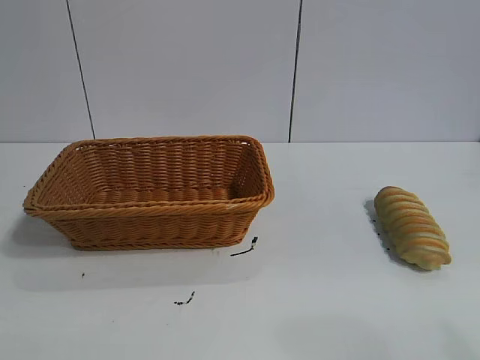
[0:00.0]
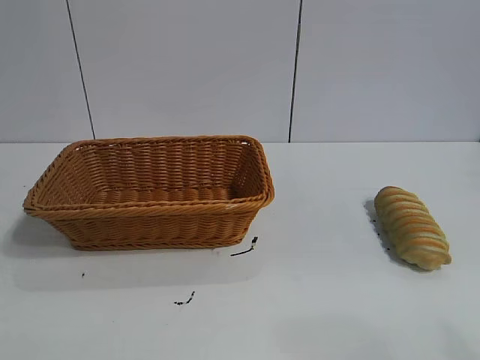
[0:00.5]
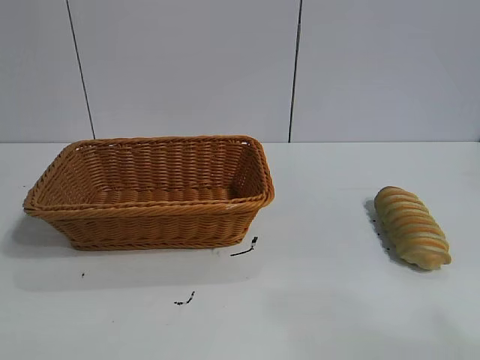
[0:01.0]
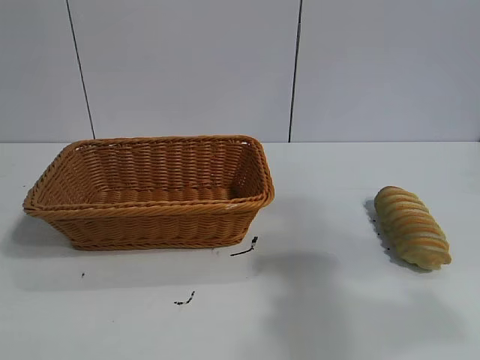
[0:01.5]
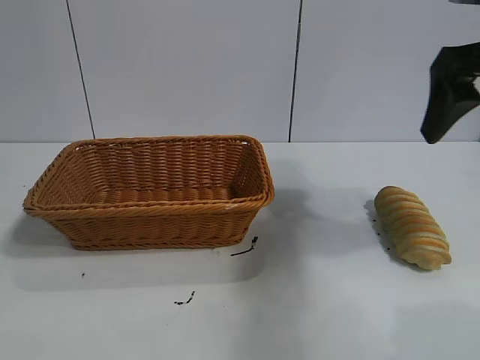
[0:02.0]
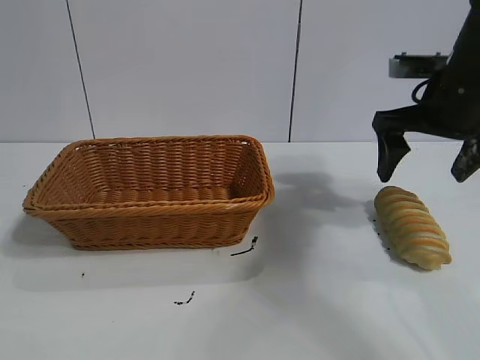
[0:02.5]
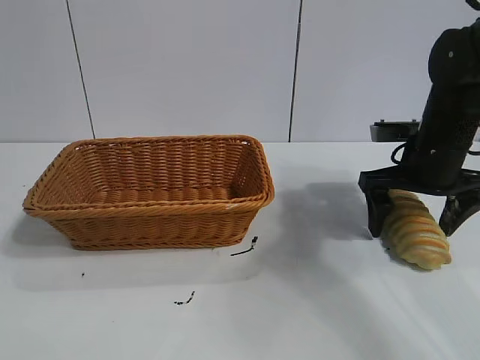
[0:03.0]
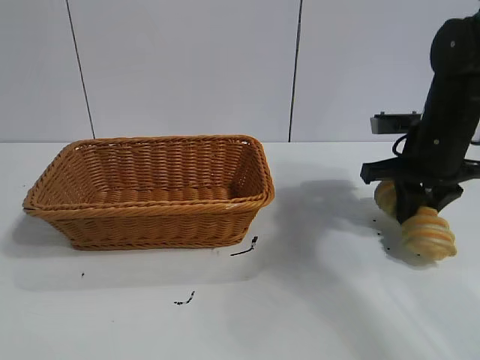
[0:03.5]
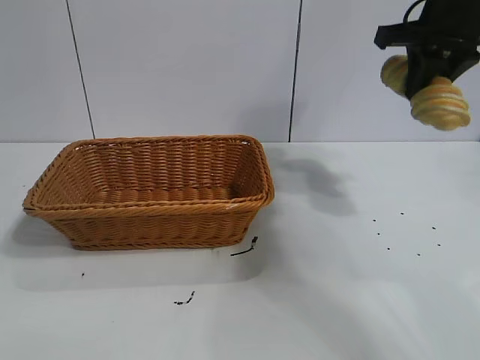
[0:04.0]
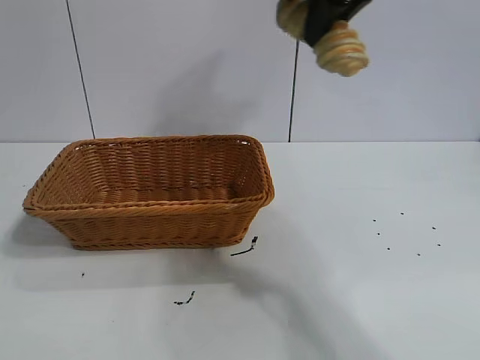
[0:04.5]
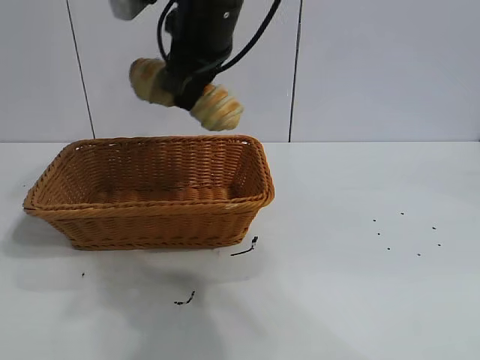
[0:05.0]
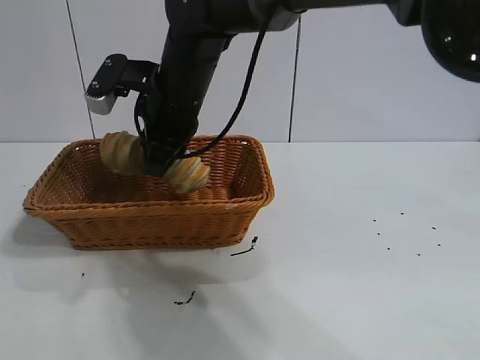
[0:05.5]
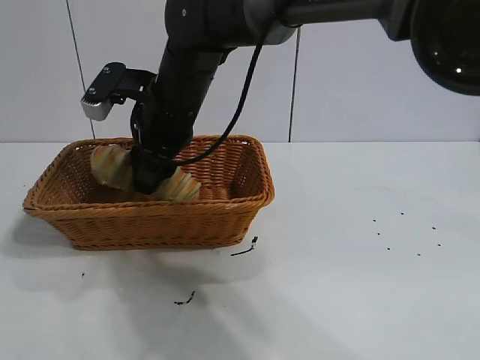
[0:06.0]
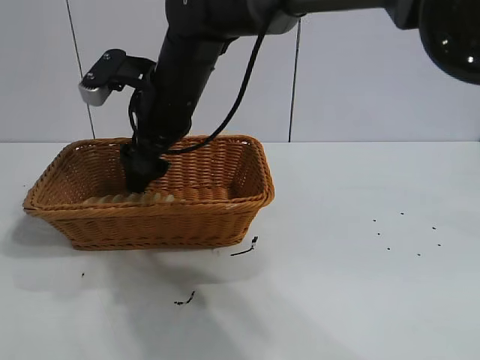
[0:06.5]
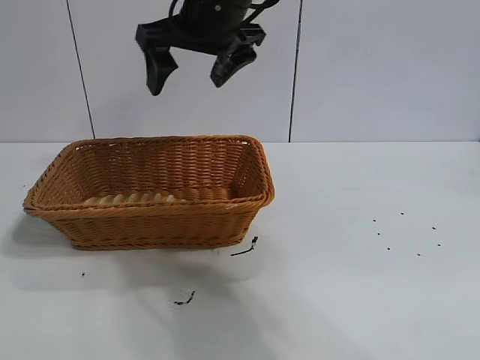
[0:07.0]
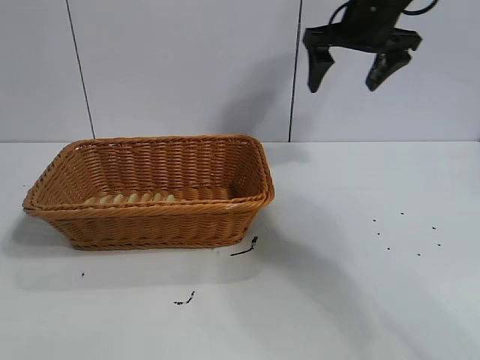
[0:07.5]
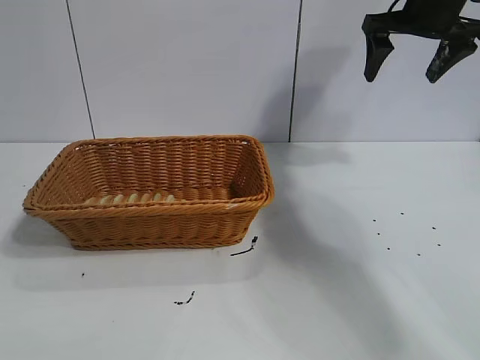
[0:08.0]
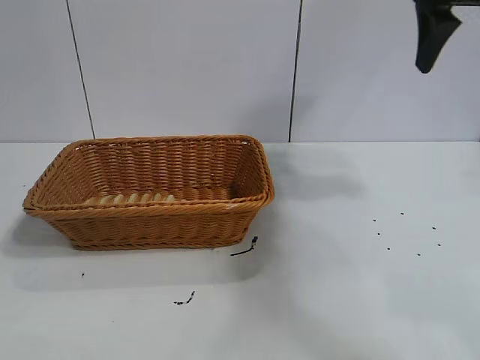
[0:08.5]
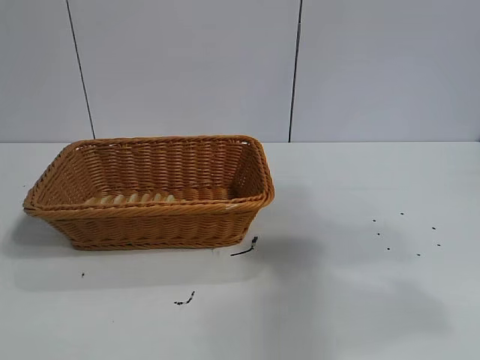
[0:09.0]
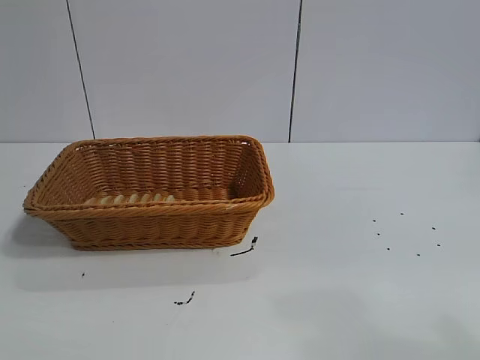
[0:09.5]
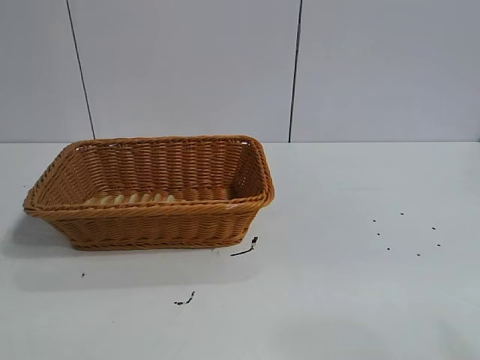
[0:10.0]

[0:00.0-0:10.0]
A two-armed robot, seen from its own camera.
Task of the whole recording: pick up the long bread and put it into the basket.
Step, 0:02.0 to 0:03.0: Grasp the long bread with right gripper.
Step, 0:04.0 to 0:06.5: Place the long bread in the basket with right gripper.
